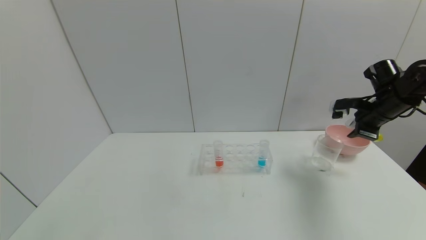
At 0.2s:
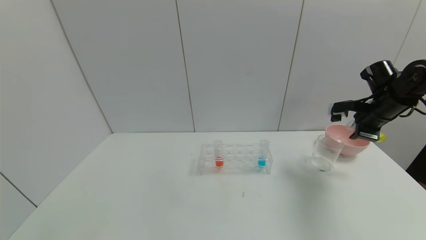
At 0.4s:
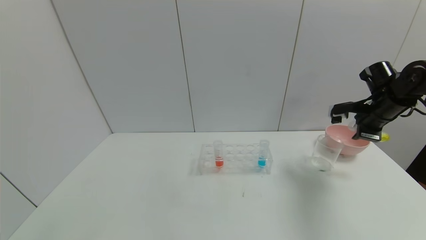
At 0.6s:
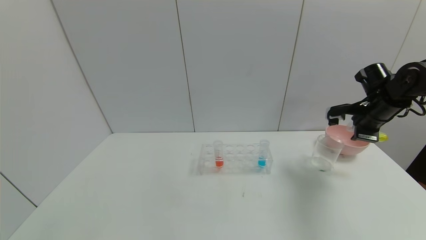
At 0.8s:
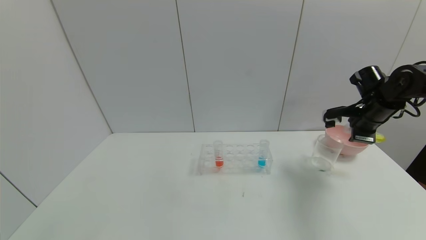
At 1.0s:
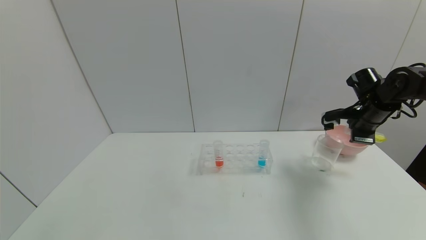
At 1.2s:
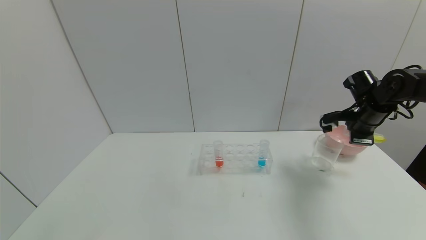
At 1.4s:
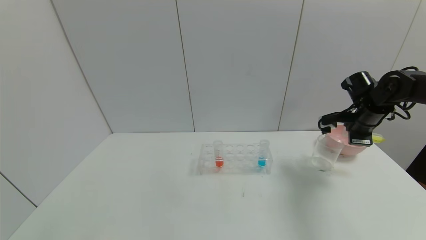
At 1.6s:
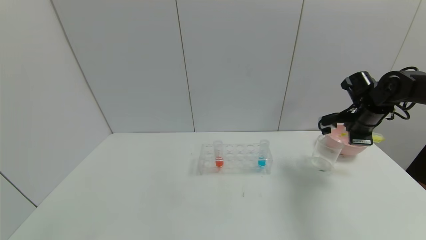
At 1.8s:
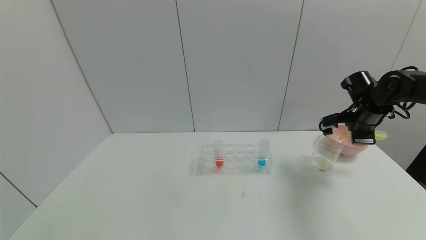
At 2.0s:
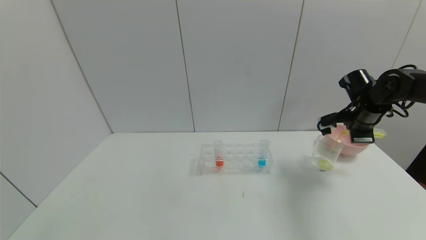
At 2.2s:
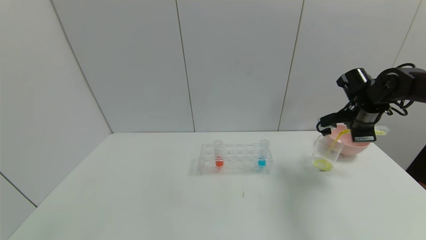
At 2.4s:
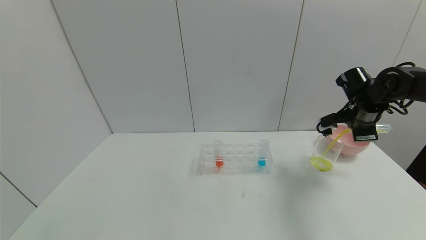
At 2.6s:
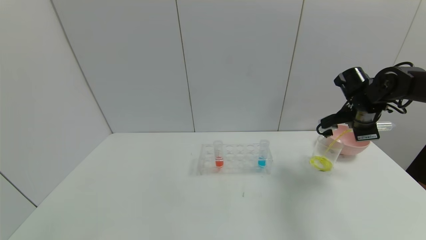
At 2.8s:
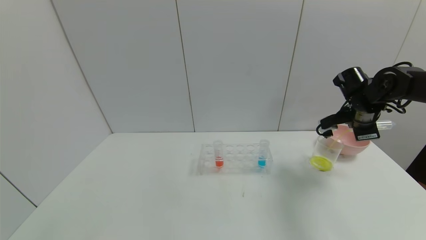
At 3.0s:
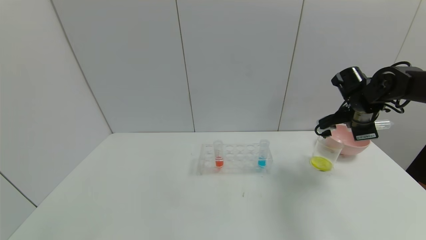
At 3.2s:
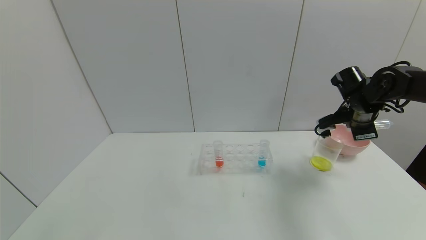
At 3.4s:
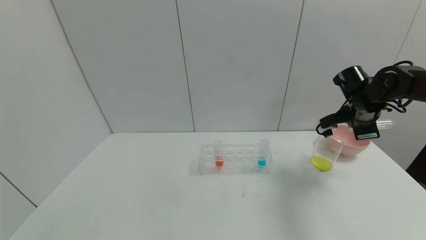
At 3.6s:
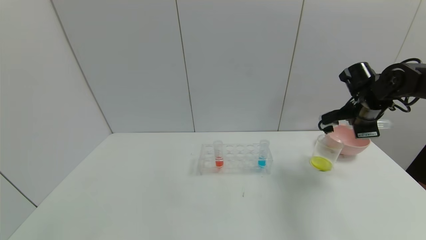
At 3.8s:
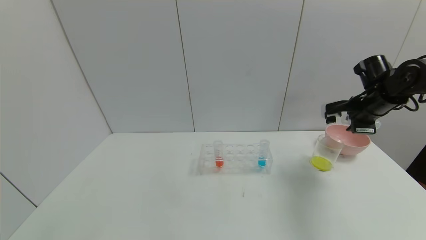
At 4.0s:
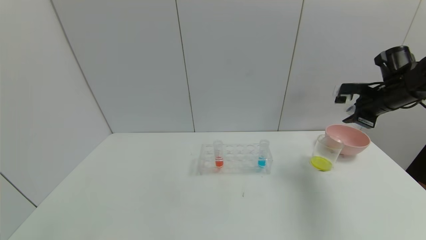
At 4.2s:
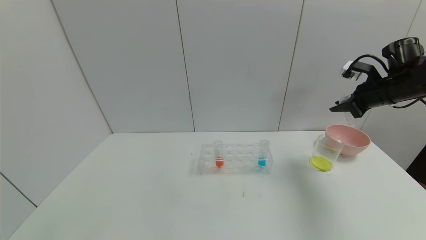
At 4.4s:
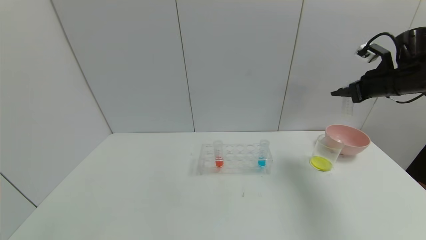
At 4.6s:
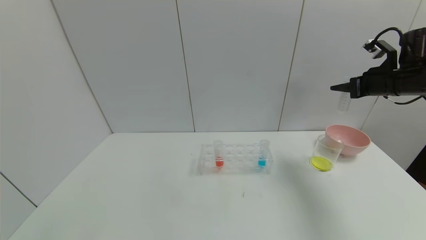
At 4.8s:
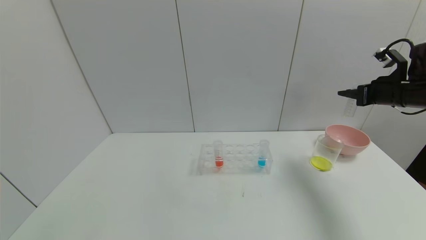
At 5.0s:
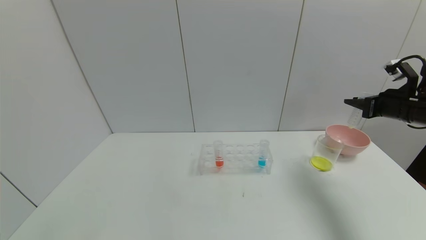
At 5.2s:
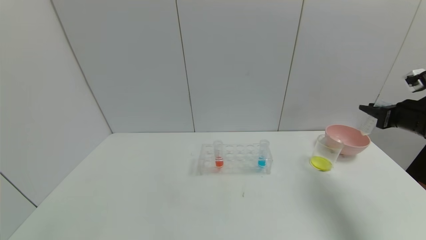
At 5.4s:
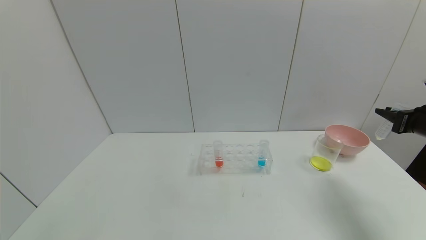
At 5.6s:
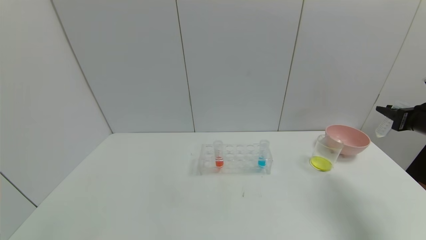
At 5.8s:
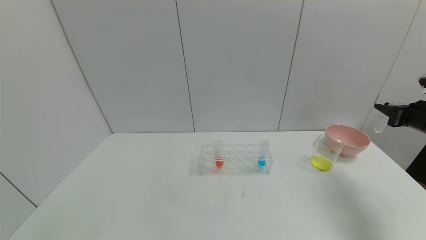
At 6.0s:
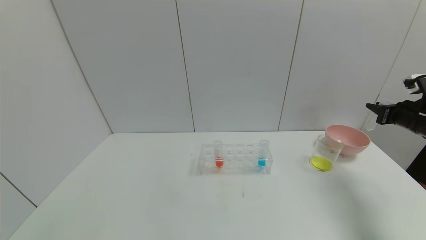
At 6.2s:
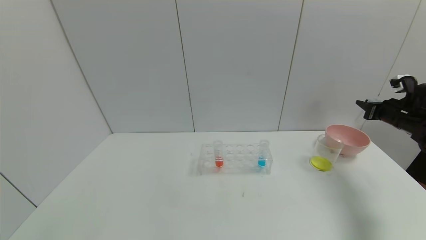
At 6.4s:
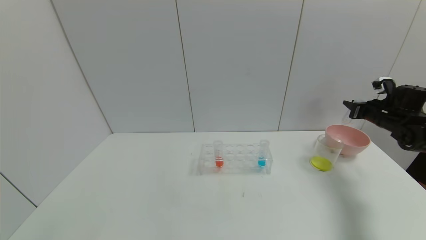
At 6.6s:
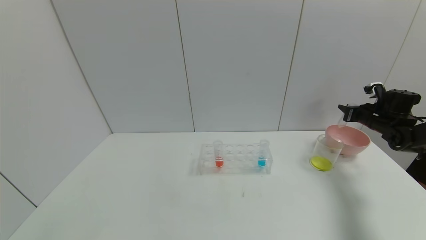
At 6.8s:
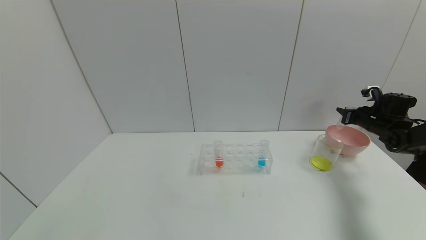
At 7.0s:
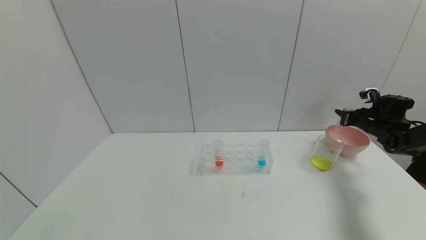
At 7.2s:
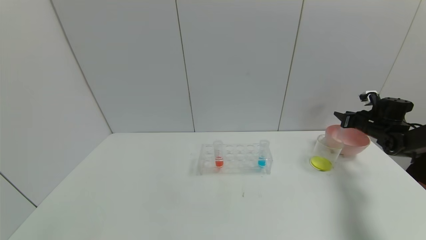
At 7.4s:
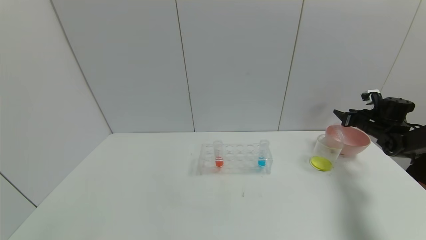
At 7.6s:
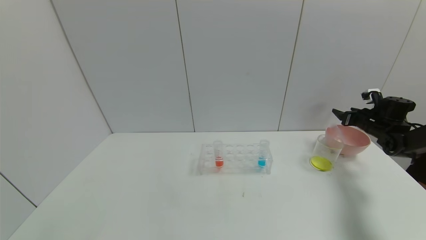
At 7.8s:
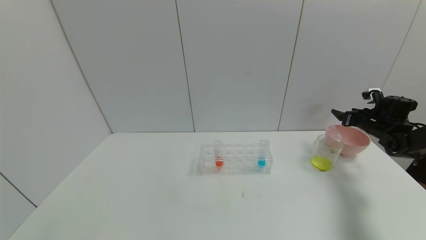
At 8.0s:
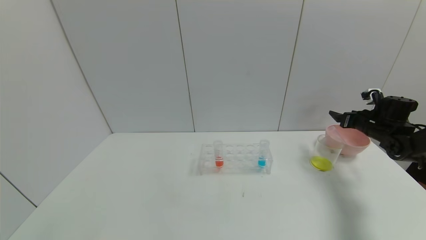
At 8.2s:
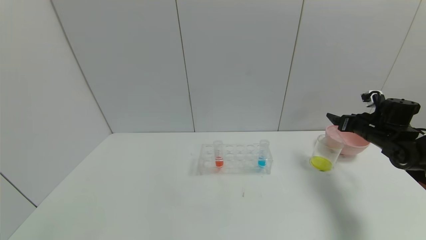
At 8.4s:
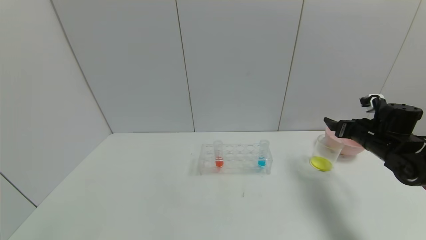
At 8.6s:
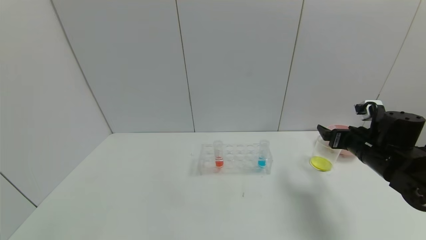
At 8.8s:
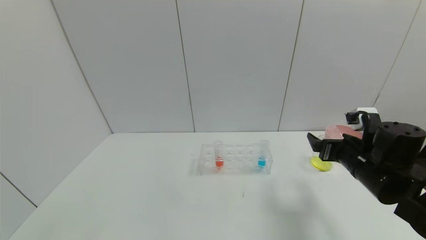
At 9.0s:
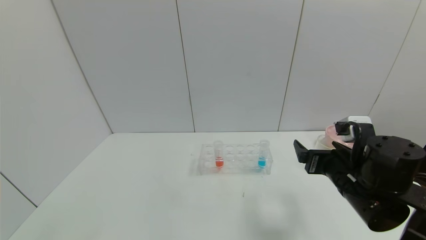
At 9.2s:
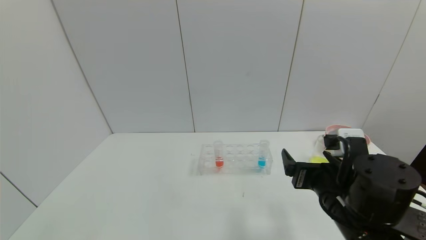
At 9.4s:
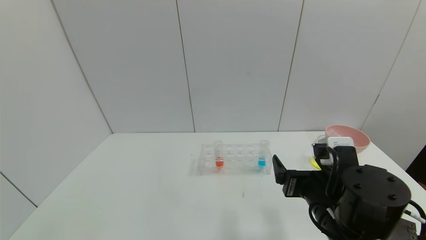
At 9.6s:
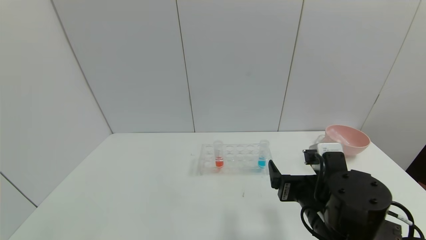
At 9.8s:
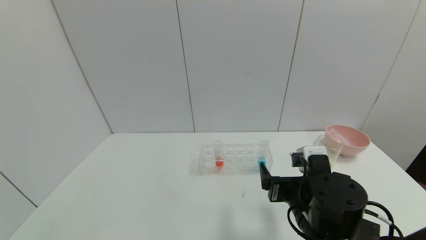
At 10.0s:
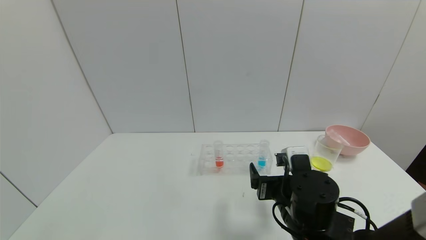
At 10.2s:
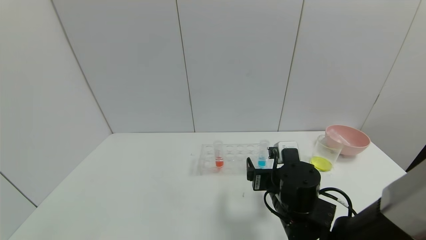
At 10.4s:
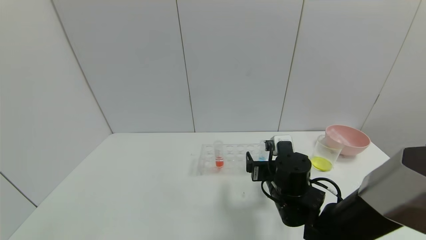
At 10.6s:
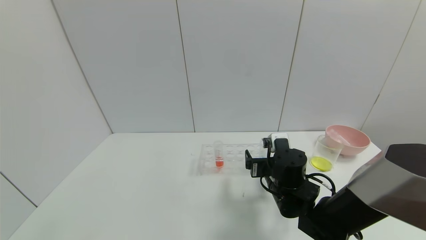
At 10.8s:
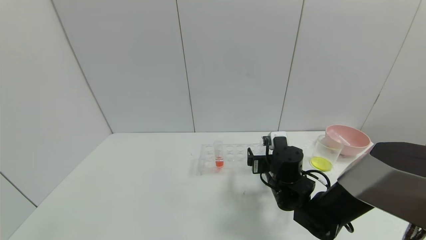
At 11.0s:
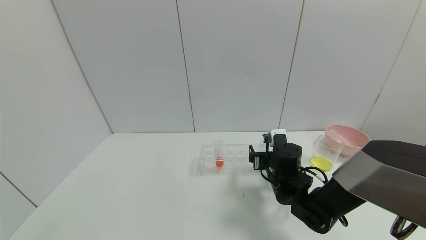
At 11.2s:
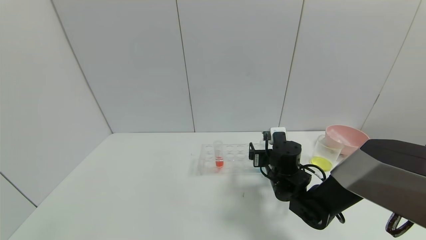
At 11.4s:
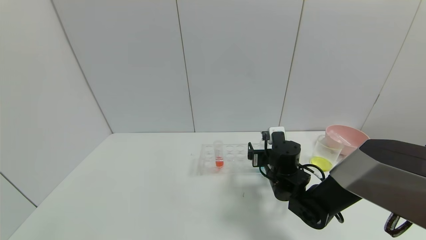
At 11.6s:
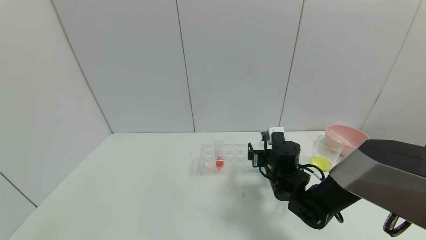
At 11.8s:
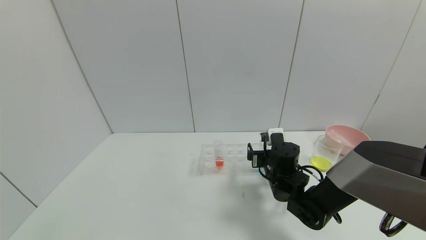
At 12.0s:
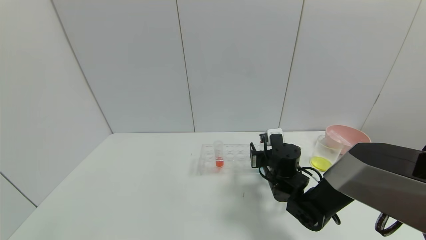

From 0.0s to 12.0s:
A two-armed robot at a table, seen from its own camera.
Task of the whole recording: pick up the test tube with yellow pigment and the test tube with blue pigment by grippers and pour them into the beaker.
Step, from 0.0s to 4.6s: Pour the yellow reagent into the graduated cylinder with the right gripper.
Step, from 4.8s to 8.4s: Place the test tube into the bowl with the right gripper.
From 0.0s to 1.6s: The grippers move only a little.
From 1.6s to 3.0s: The grippers stay close to where they were, moving slightly.
From 3.0s to 4.4s: The right gripper heads upward and to the right, covering about 10 cm.
From 4.4s to 6.0s: The right gripper heads downward and to the right, covering some 10 cm, and travels backward and back again, about 10 cm each way.
From 6.0s to 7.6s: The right gripper travels forward and downward by about 15 cm, and opens.
From 7.6s to 9.0s: The right gripper is displaced to the left and backward by roughly 35 cm.
From 9.0s to 10.4s: The right gripper shifts approximately 10 cm to the left, downward and forward.
From 10.4s to 12.0s: The right gripper shifts roughly 5 cm forward, and closes up.

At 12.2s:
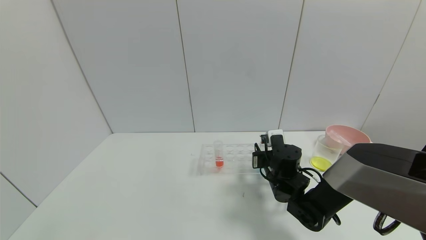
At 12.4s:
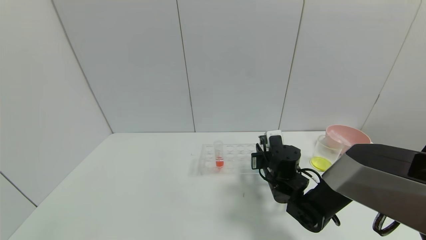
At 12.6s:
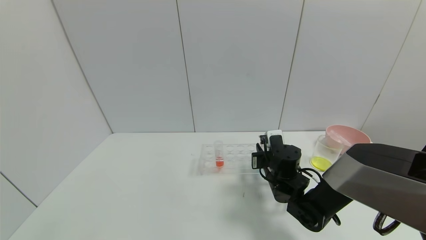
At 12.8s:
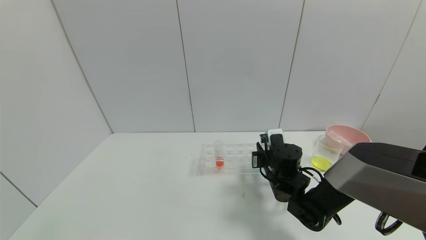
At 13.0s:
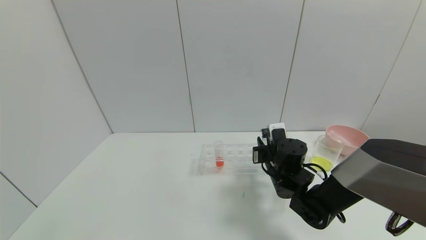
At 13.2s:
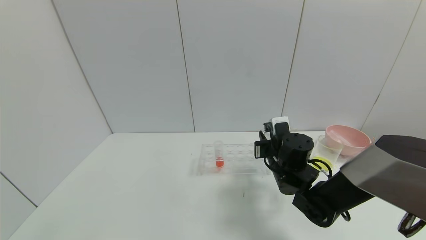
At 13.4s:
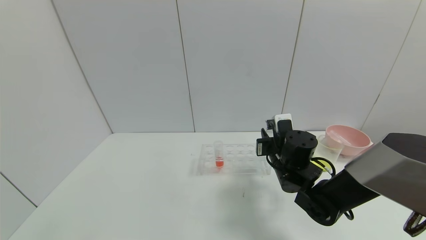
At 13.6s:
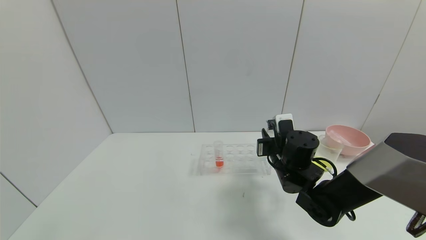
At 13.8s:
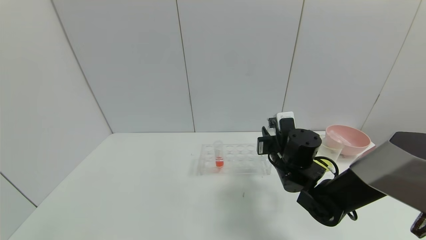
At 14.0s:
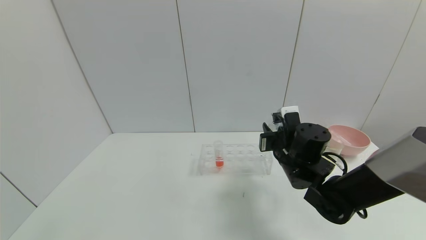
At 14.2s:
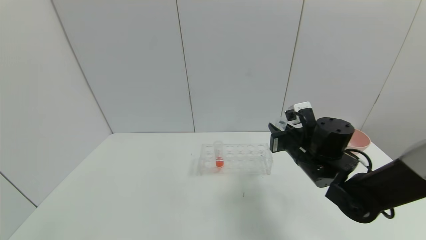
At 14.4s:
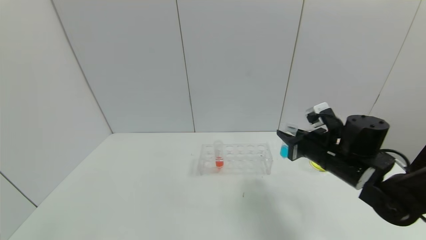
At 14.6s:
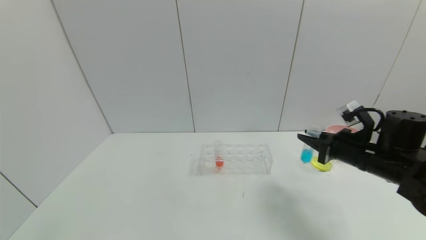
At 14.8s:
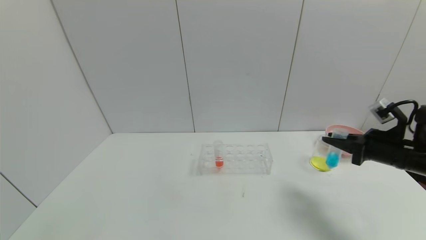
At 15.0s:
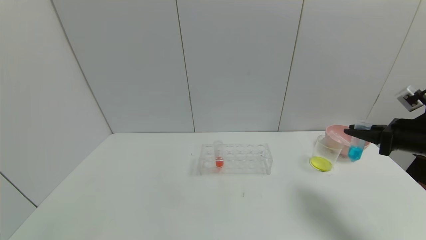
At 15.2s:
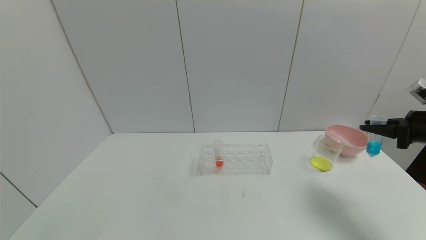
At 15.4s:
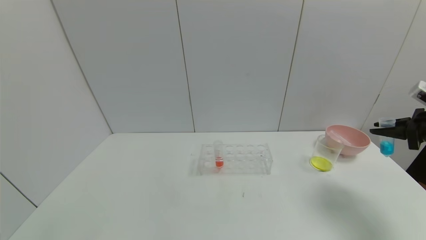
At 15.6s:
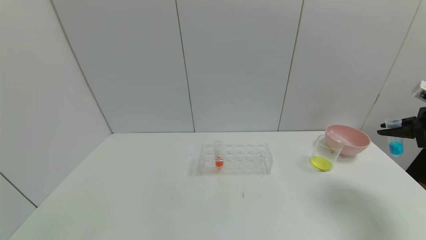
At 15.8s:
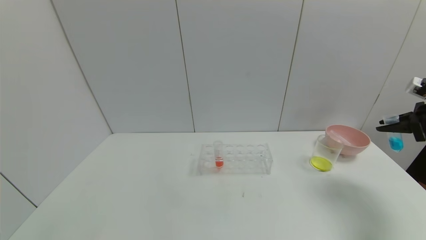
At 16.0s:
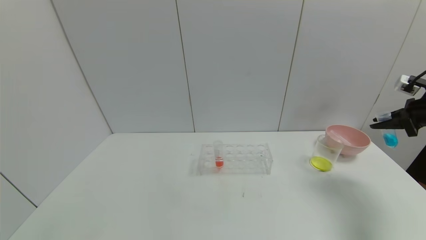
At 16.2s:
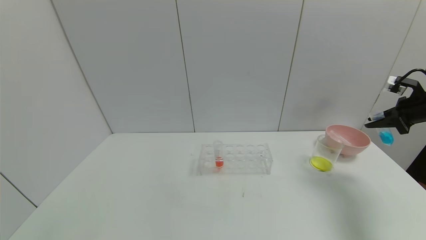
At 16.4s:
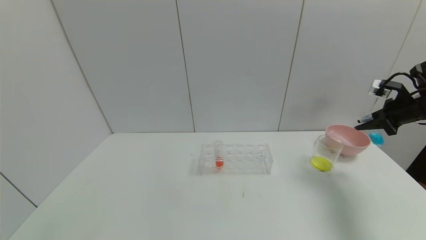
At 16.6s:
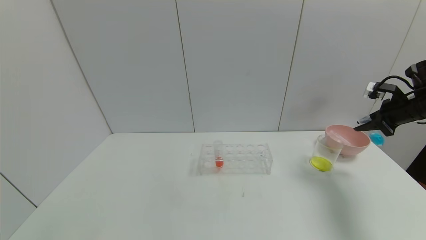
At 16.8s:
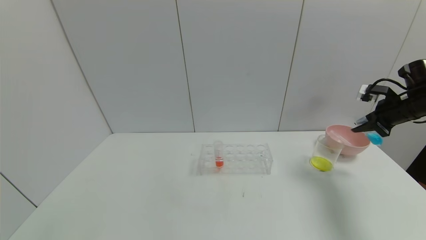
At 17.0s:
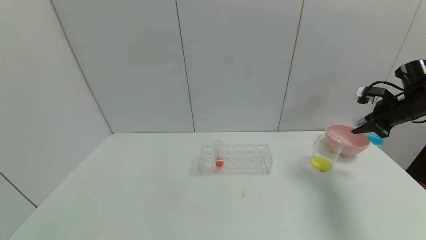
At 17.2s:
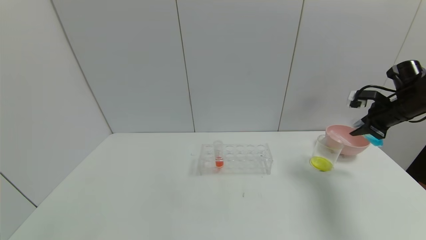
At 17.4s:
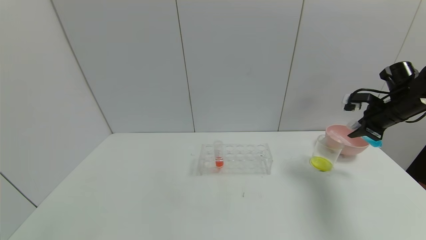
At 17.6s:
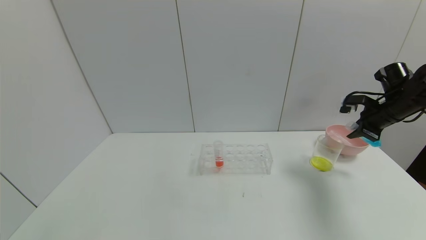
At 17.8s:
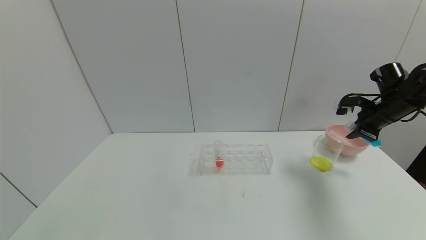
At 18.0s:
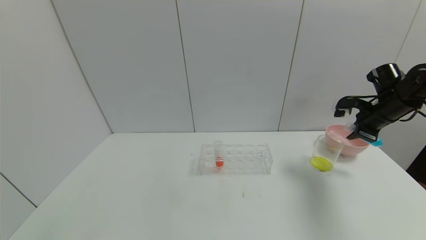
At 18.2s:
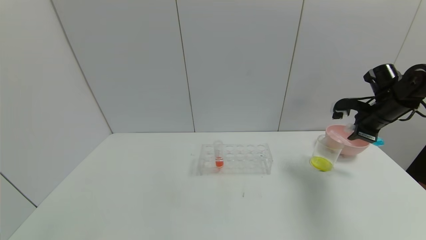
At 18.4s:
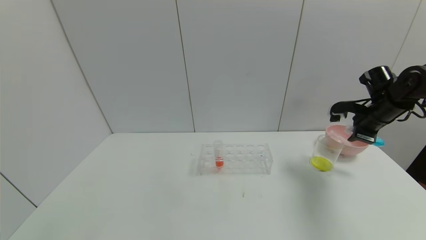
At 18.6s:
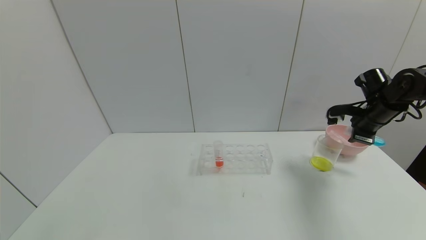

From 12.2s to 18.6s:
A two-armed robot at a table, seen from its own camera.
Task of the whole recording: pick up the test tube with yellow pigment and the test tube with blue pigment by grippers and pour them into the beaker.
From 12.2s to 13.8s: The right gripper heads upward, covering about 5 cm.
From 13.8s to 15.4s: The right gripper shifts about 35 cm to the right.
From 15.4s to 17.0s: The right gripper is displaced forward by some 10 cm.
From 17.0s to 18.6s: The right gripper goes roughly 5 cm to the left.
